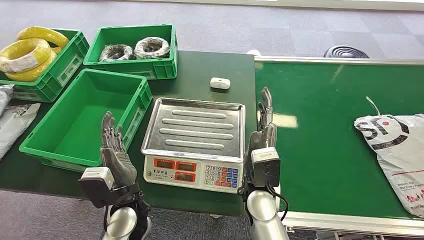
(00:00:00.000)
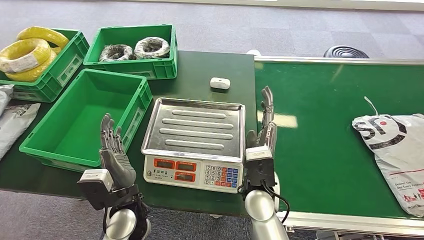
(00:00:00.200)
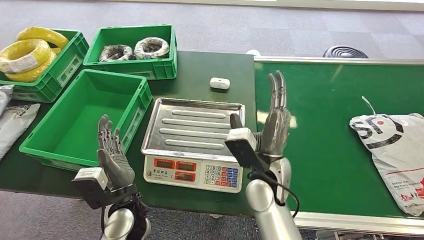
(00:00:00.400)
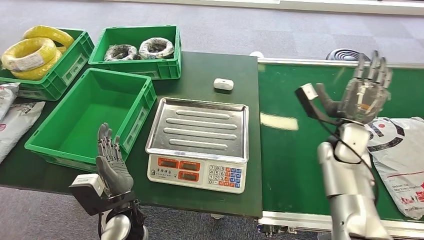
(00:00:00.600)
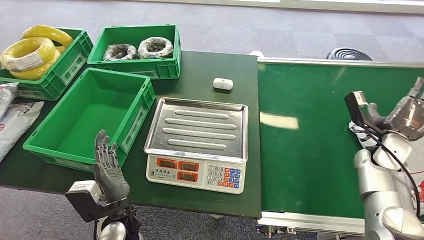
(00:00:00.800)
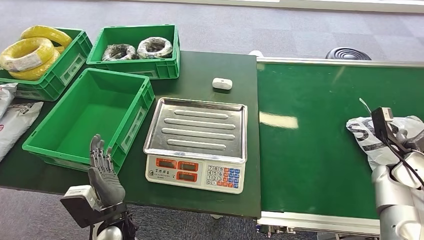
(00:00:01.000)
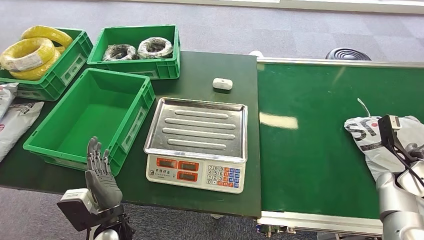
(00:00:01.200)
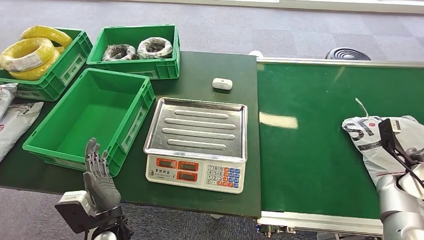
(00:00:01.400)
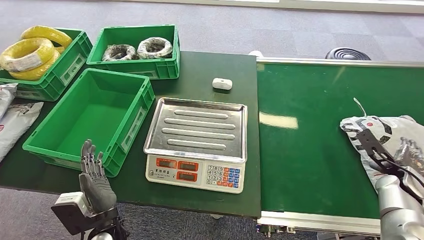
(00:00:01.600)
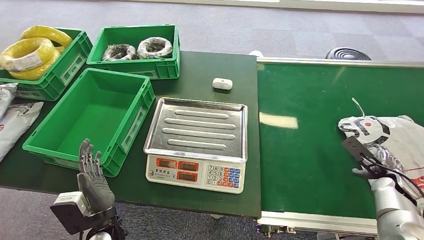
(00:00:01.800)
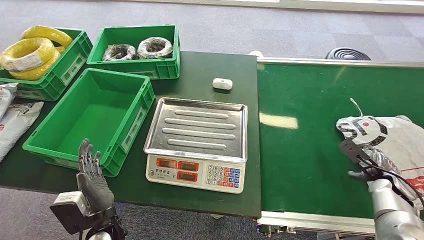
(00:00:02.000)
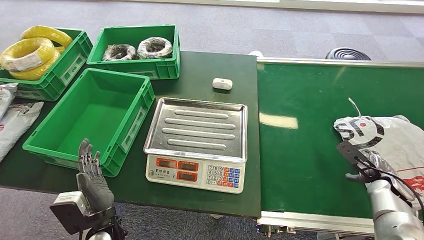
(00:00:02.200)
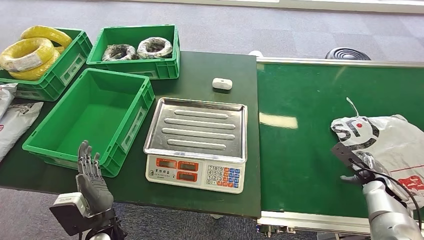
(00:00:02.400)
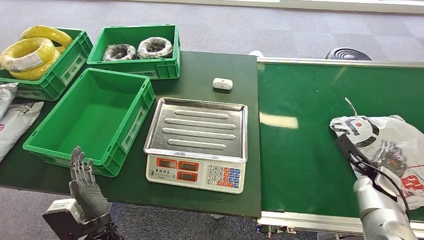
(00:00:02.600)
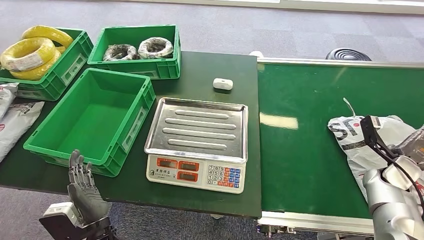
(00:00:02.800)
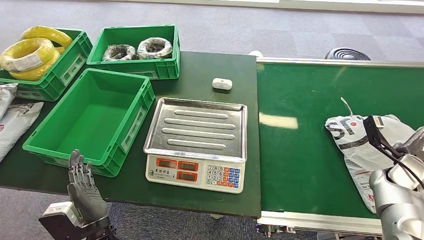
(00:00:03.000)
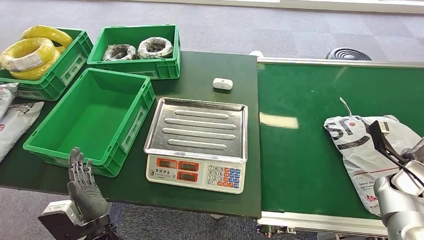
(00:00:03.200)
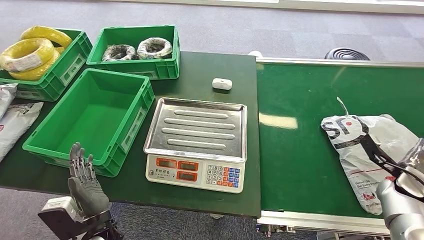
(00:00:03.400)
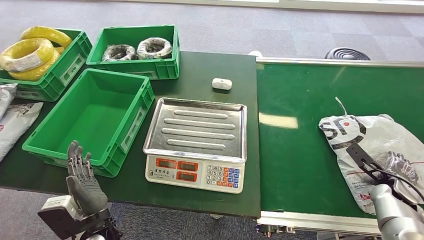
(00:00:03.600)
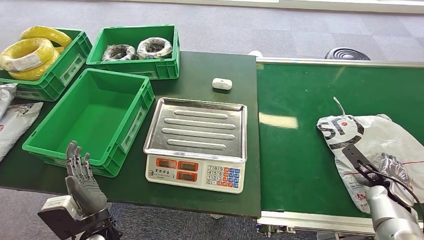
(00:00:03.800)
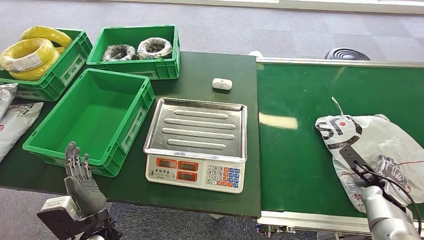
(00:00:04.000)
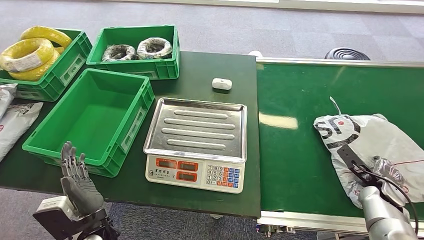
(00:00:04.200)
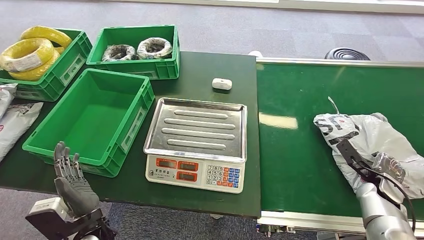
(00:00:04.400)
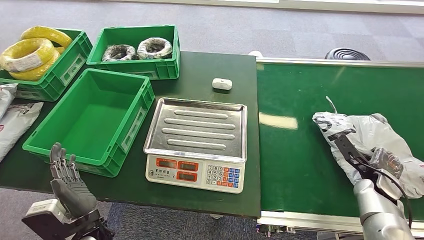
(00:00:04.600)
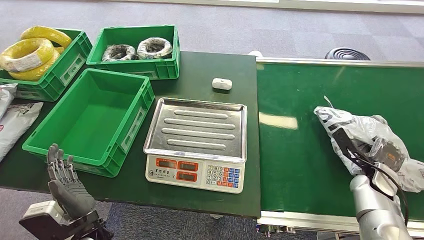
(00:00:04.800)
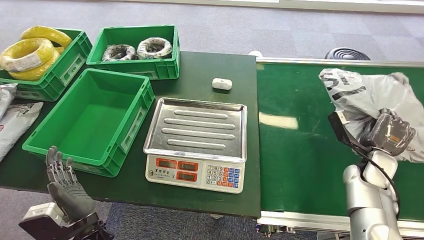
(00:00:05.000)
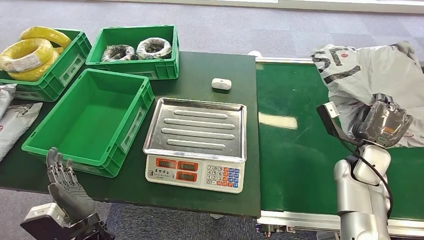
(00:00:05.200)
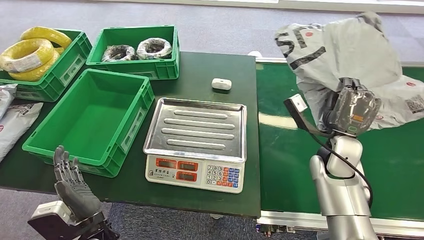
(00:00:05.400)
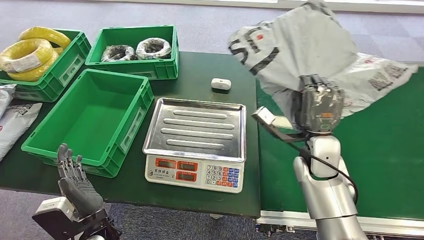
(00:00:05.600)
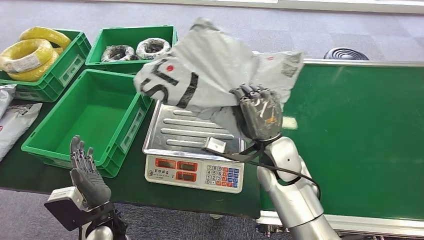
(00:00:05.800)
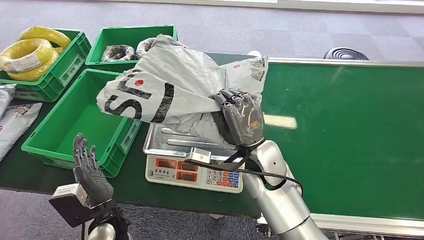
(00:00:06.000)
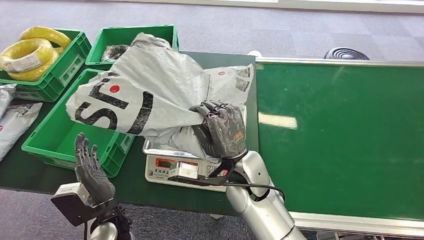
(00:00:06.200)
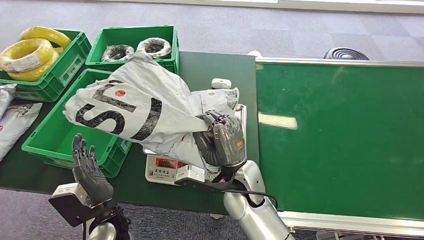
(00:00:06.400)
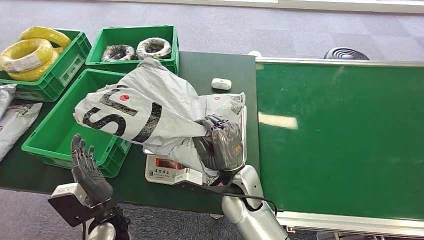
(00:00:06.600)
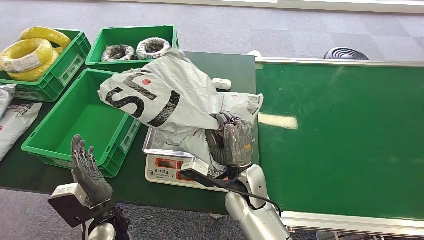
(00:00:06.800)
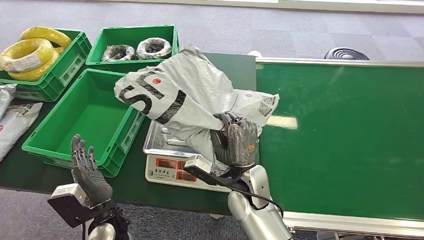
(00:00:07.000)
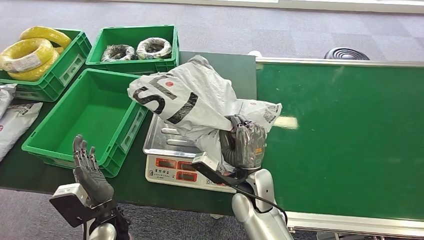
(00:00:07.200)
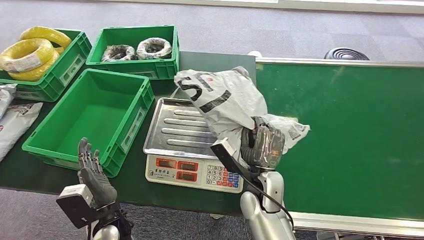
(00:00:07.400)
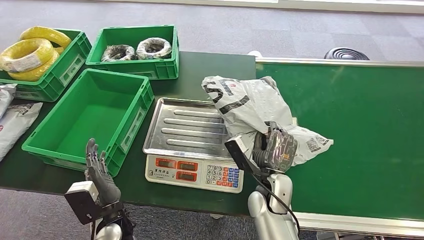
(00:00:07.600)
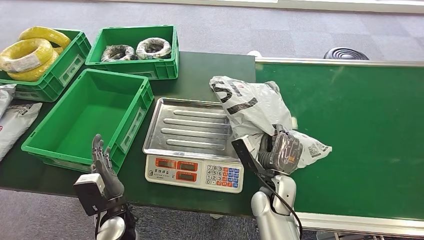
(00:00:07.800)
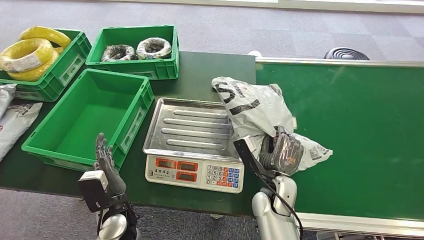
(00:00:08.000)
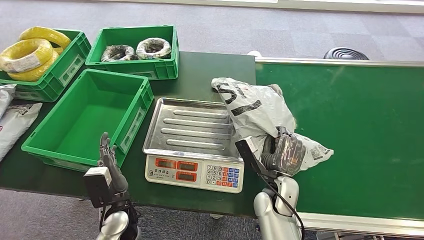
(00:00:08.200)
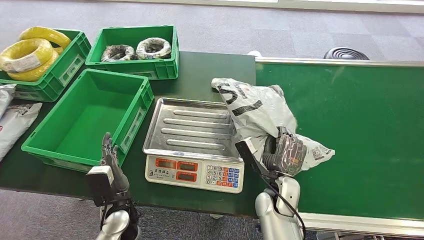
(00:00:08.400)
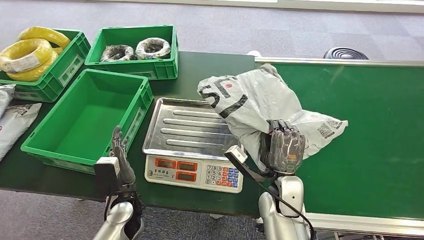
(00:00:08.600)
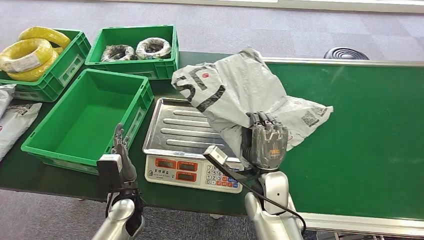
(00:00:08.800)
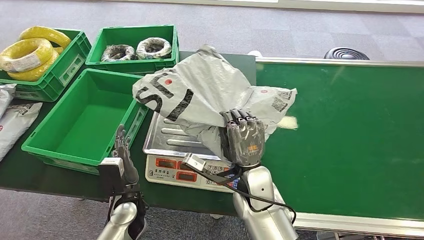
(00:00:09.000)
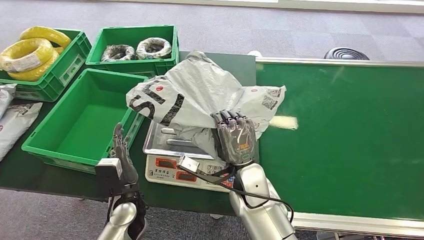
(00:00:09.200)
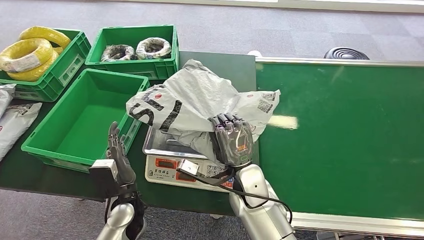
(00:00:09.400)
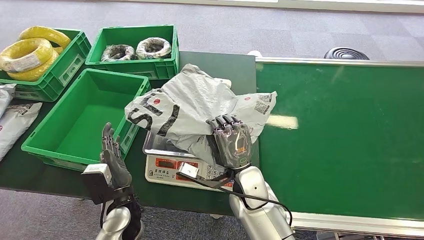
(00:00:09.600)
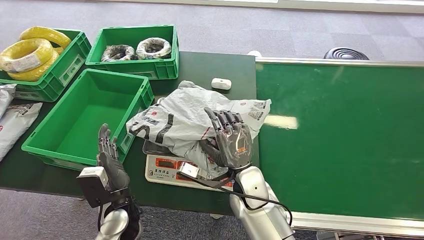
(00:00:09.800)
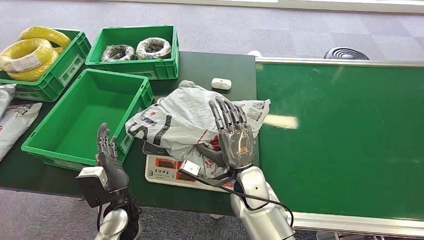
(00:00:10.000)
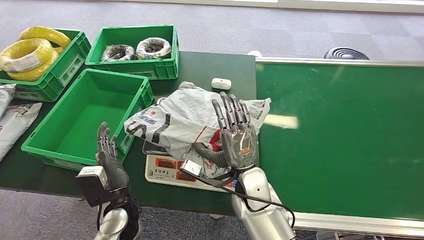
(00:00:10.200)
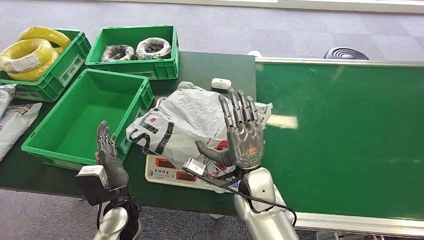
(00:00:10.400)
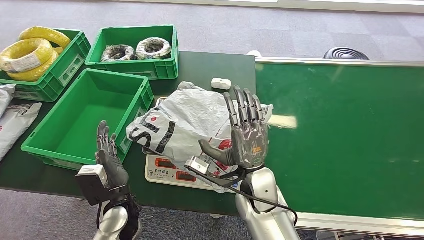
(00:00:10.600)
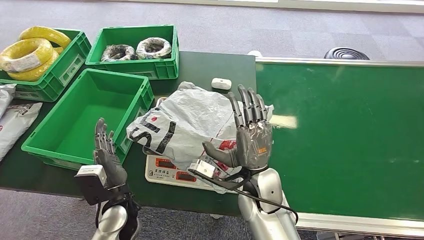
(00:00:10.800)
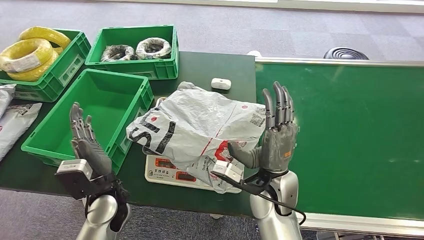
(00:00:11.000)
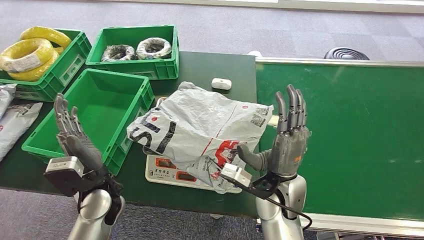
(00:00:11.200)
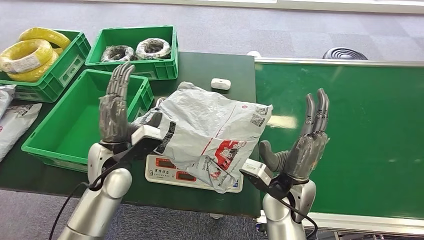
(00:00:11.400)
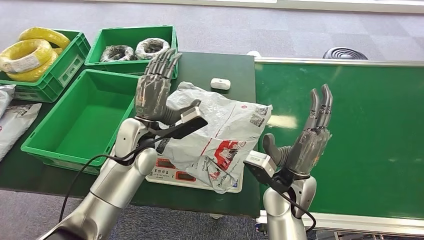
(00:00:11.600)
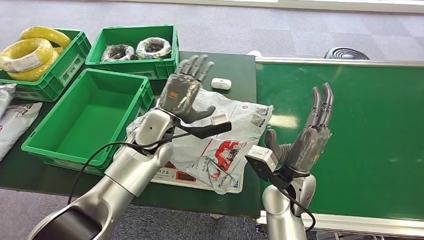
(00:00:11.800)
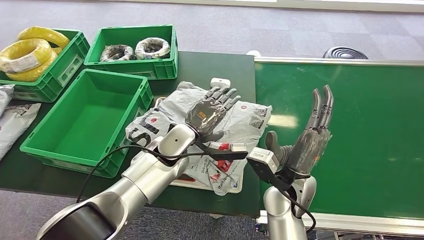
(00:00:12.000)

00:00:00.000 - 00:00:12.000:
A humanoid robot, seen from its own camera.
Step, 00:00:00.000 - 00:00:05.400: Pick up the package from the conveyor belt.
Step, 00:00:05.600 - 00:00:11.200: Place the package onto the inbound machine.
00:00:03.000 - 00:00:04.400: The right hand shifts roughly 5 cm downward.
00:00:07.600 - 00:00:09.000: The right hand shifts by approximately 5 cm. Meanwhile the left hand goes some 5 cm forward.
00:00:09.000 - 00:00:10.400: The hands stay close to where they were, moving slightly.

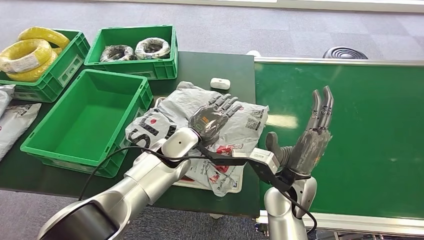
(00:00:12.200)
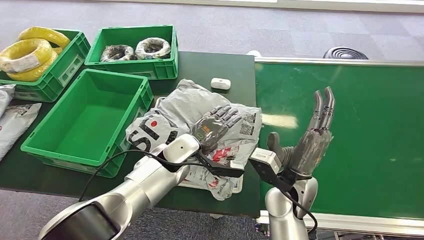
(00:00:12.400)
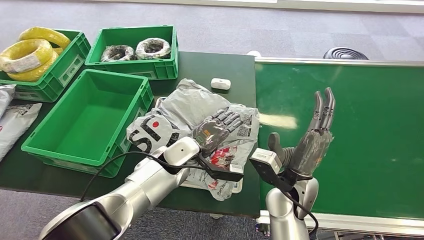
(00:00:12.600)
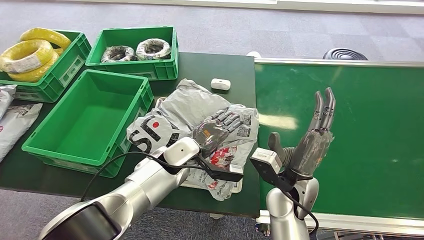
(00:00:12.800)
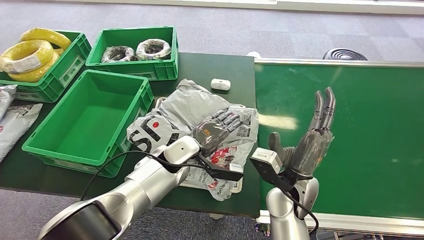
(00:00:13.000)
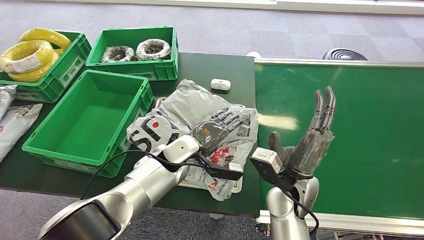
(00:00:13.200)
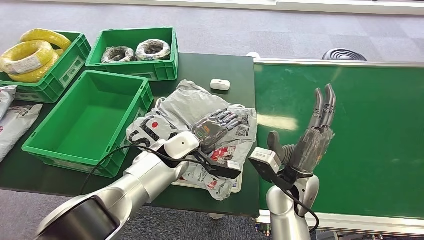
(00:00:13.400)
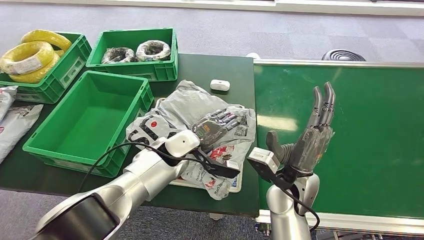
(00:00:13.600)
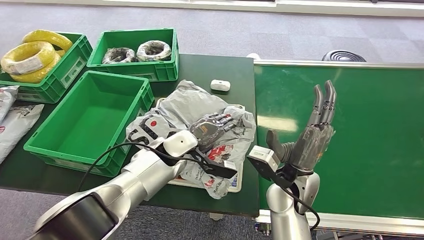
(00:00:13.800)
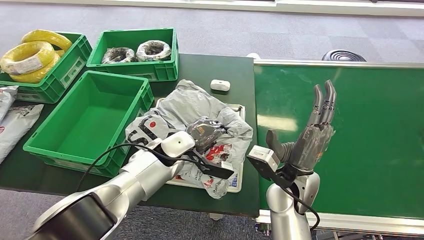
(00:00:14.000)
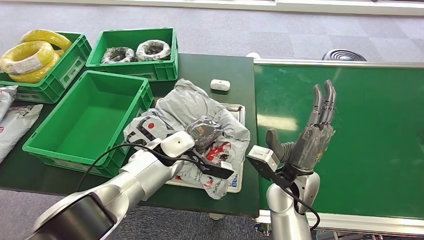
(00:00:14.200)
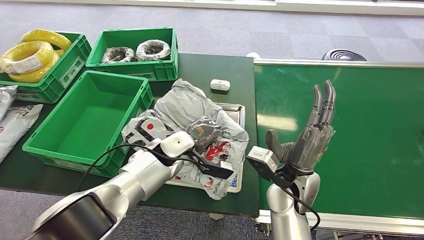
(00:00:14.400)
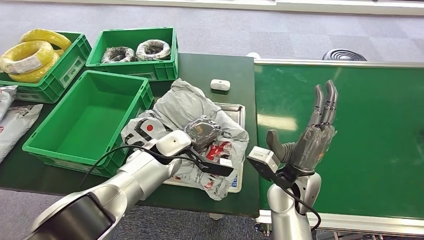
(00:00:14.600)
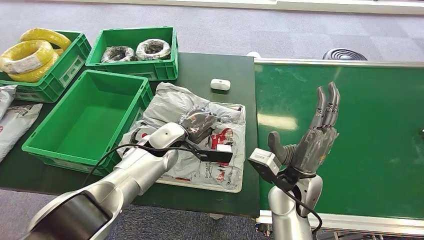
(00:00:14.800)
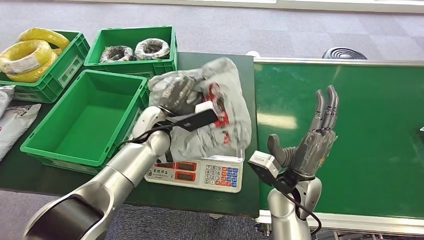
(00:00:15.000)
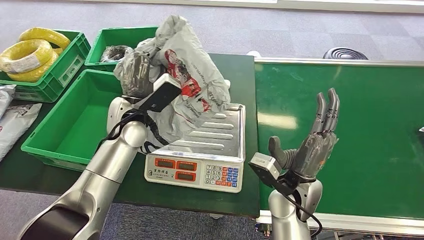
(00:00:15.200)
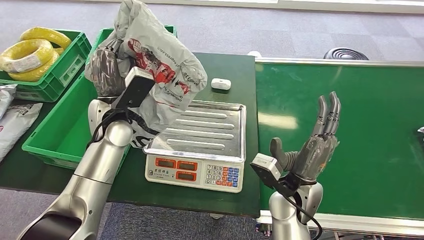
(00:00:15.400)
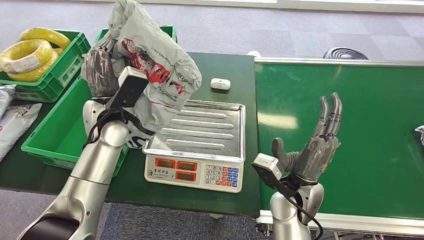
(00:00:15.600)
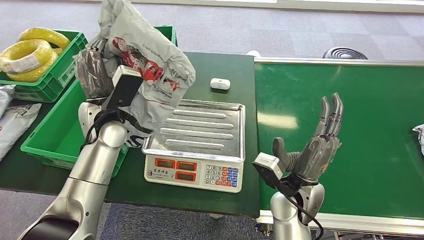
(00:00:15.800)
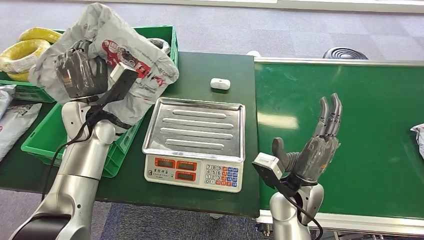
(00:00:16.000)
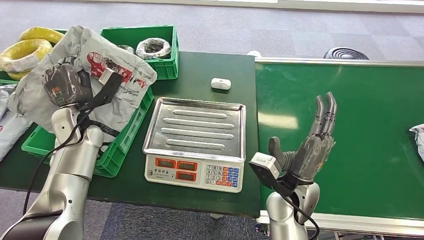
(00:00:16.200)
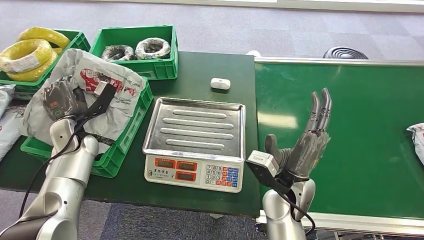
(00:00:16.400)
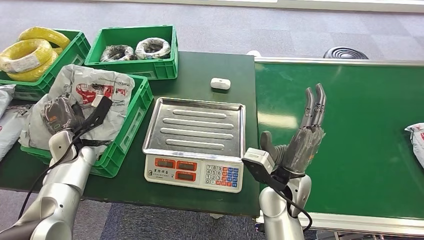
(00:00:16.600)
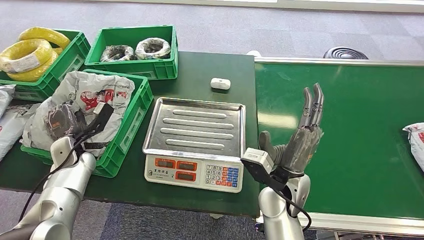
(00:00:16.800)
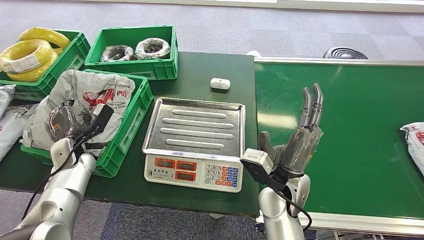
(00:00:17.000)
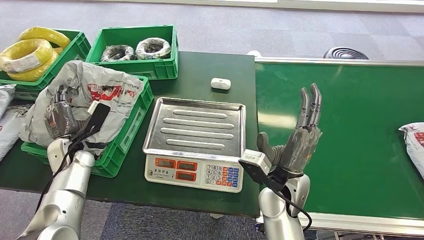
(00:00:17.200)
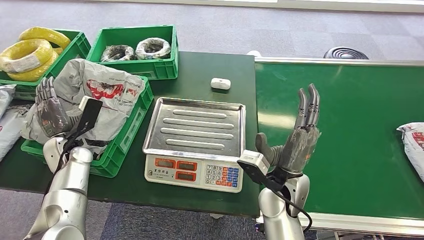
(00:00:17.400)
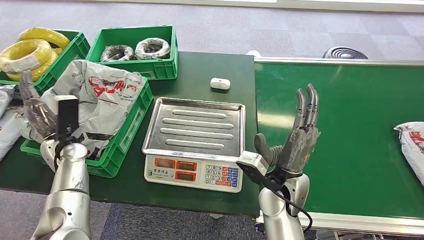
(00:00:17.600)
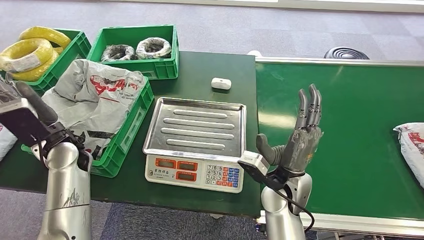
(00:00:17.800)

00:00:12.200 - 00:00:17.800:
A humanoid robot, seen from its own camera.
Step, 00:00:12.200 - 00:00:15.400: Pick up the package from the inbound machine.
Step, 00:00:15.600 - 00:00:17.800: Place the package into the parcel locker.
